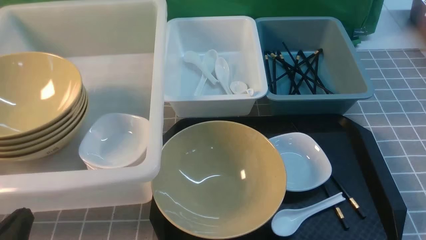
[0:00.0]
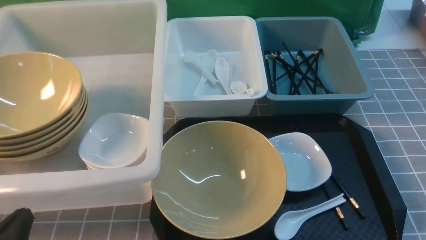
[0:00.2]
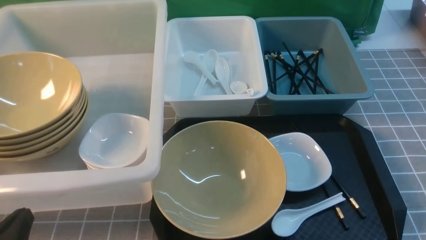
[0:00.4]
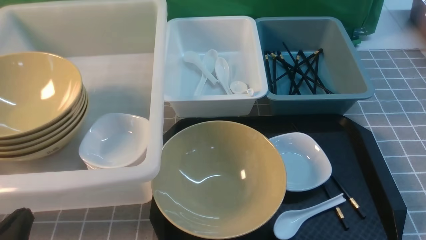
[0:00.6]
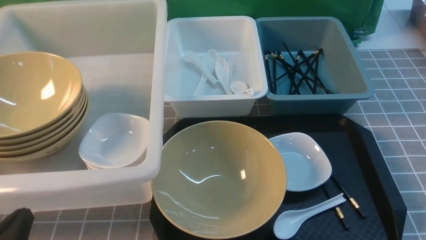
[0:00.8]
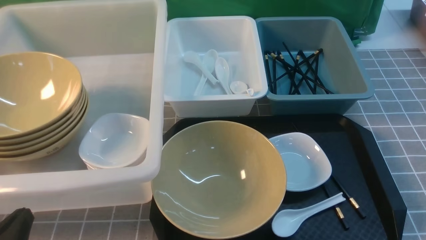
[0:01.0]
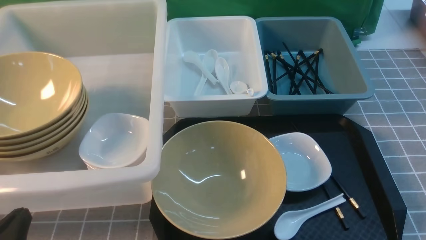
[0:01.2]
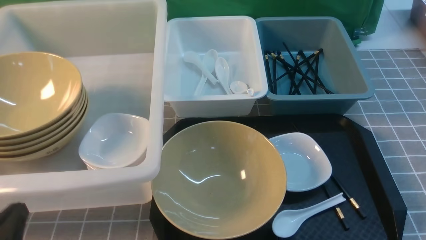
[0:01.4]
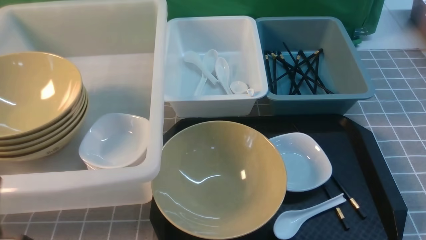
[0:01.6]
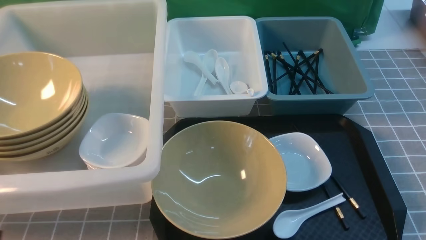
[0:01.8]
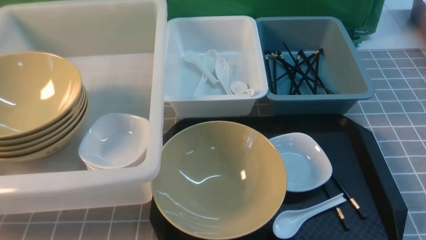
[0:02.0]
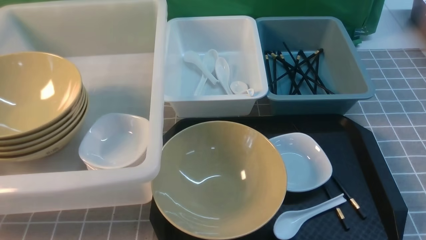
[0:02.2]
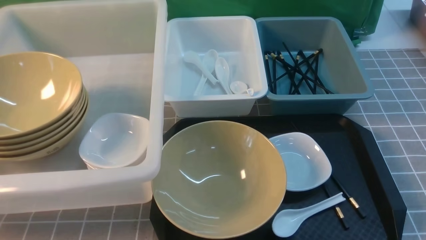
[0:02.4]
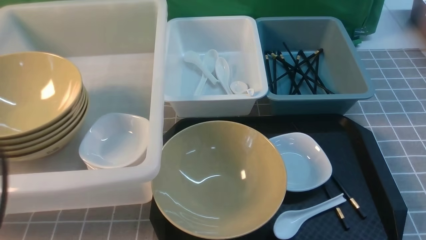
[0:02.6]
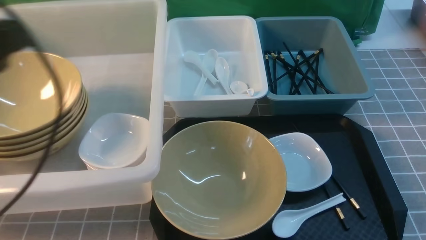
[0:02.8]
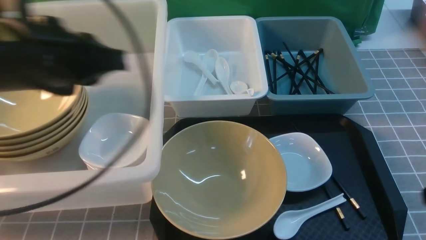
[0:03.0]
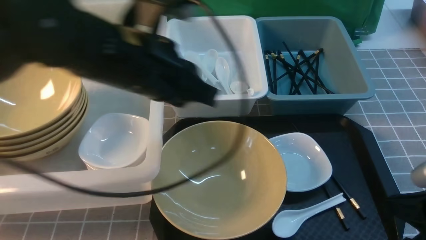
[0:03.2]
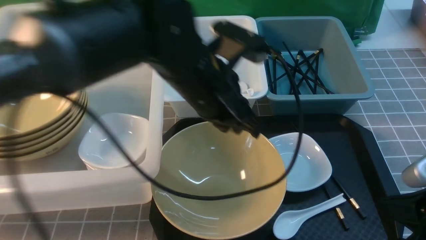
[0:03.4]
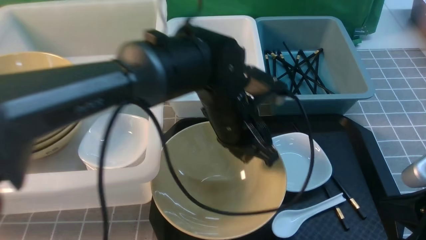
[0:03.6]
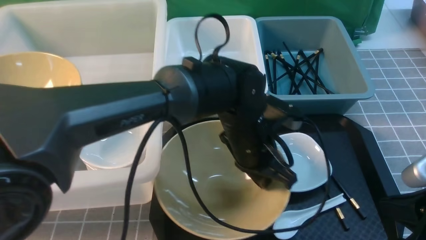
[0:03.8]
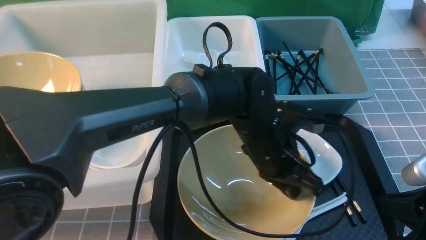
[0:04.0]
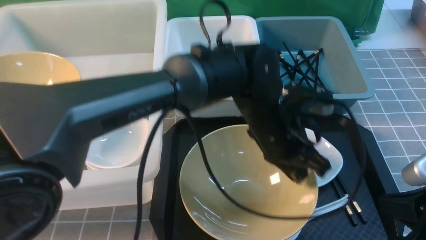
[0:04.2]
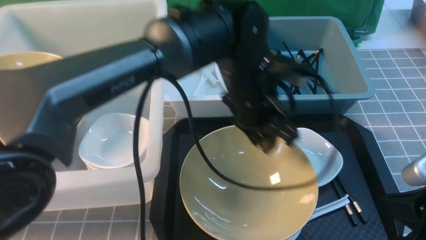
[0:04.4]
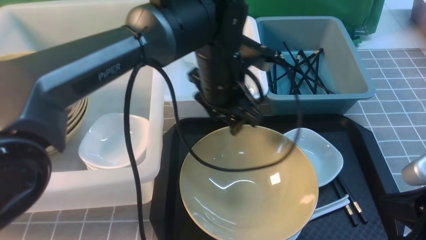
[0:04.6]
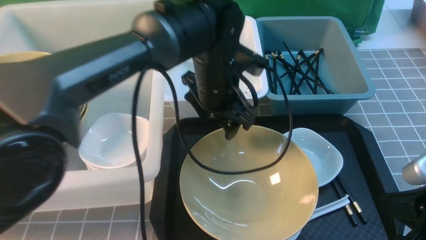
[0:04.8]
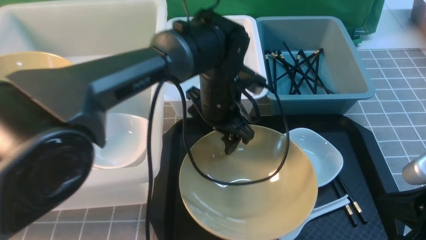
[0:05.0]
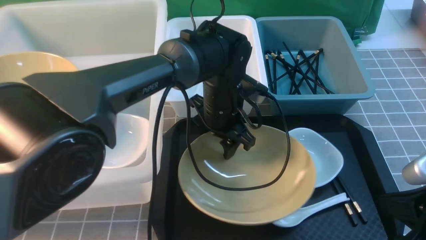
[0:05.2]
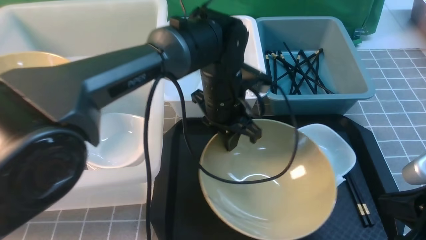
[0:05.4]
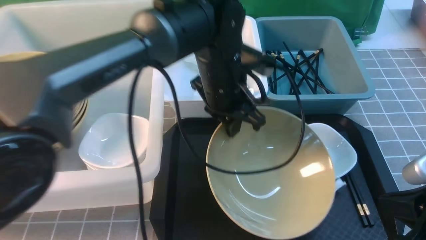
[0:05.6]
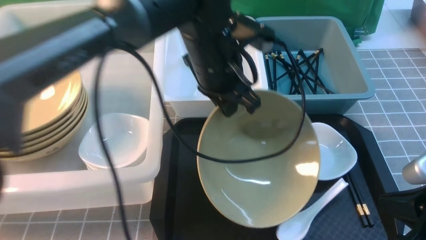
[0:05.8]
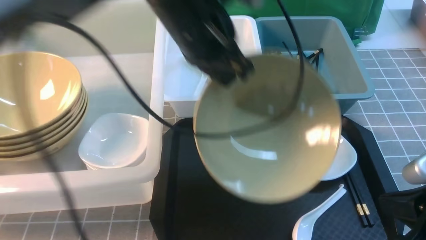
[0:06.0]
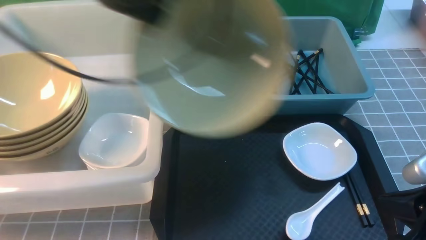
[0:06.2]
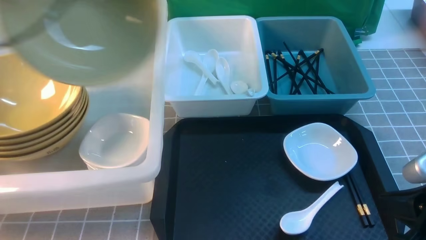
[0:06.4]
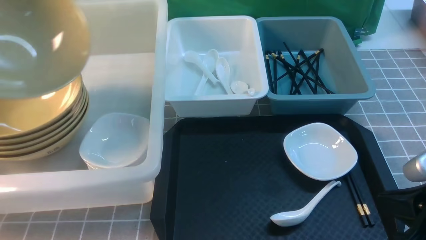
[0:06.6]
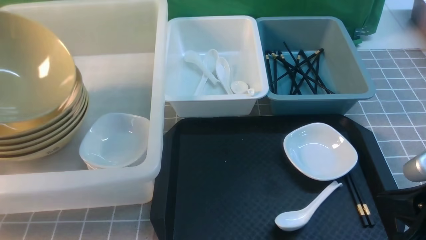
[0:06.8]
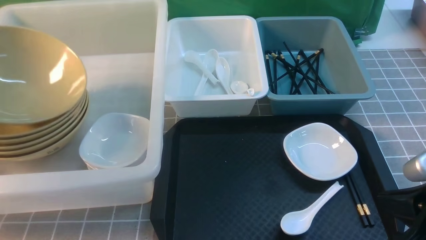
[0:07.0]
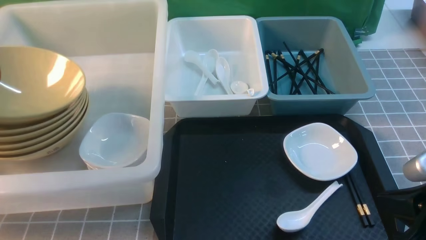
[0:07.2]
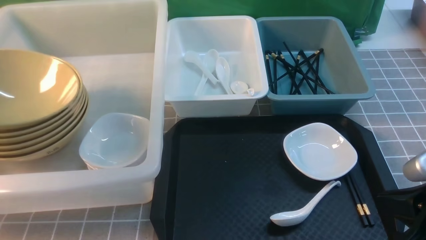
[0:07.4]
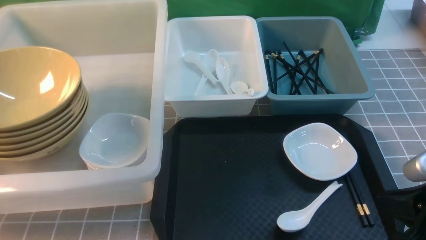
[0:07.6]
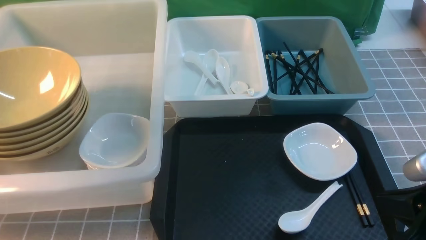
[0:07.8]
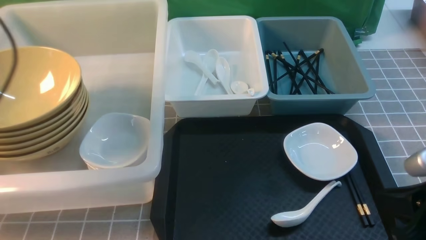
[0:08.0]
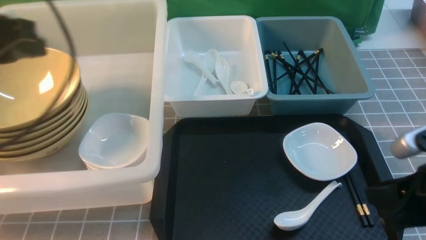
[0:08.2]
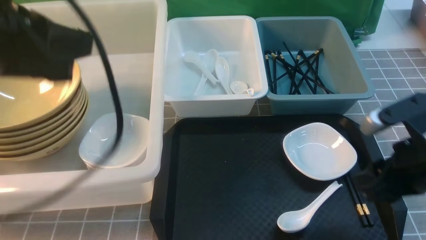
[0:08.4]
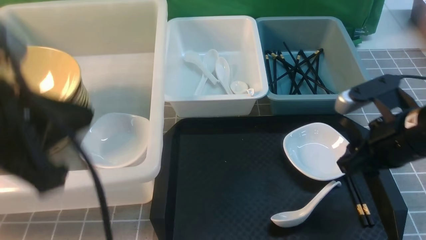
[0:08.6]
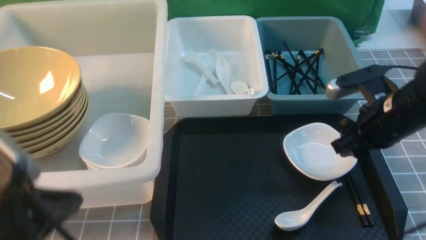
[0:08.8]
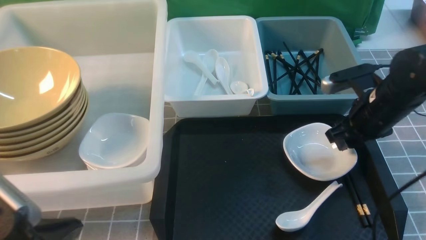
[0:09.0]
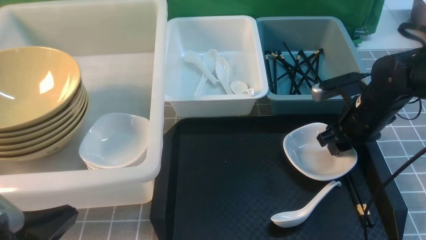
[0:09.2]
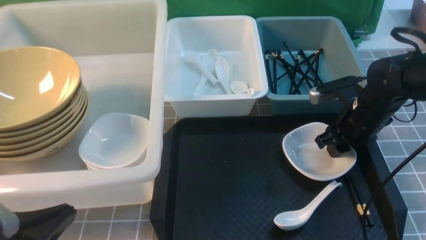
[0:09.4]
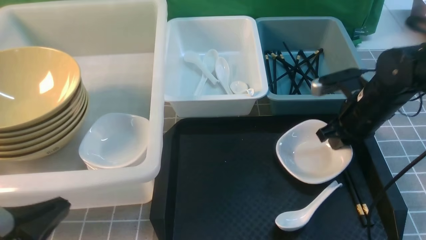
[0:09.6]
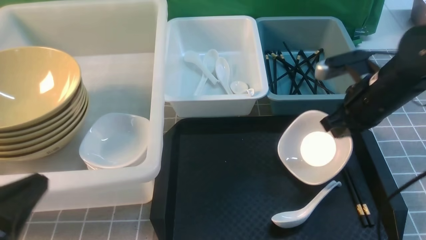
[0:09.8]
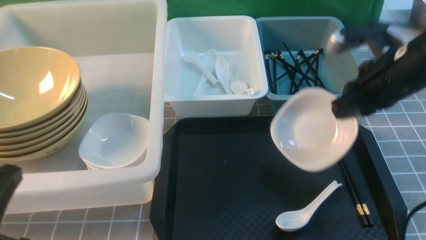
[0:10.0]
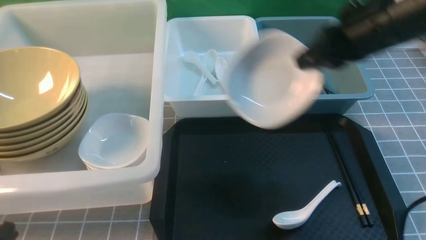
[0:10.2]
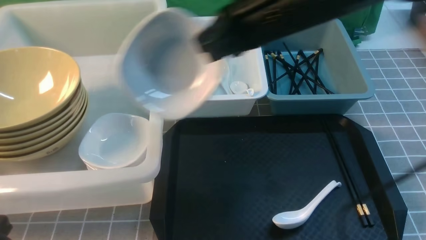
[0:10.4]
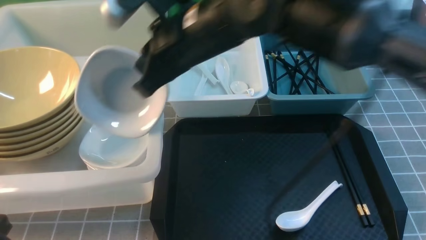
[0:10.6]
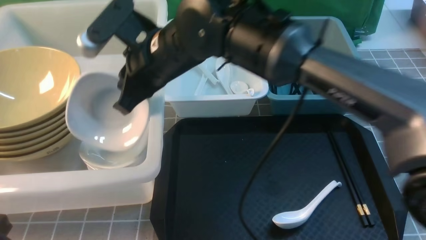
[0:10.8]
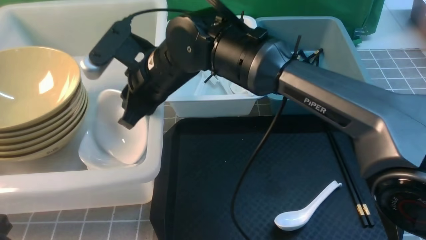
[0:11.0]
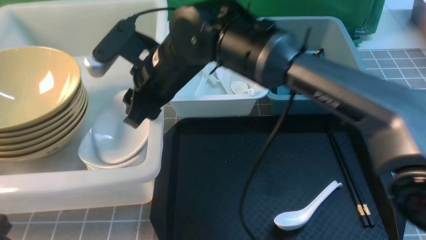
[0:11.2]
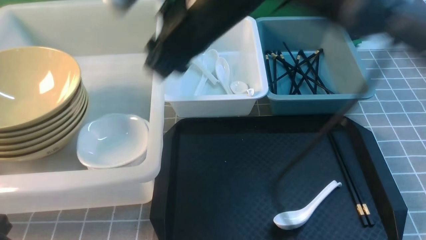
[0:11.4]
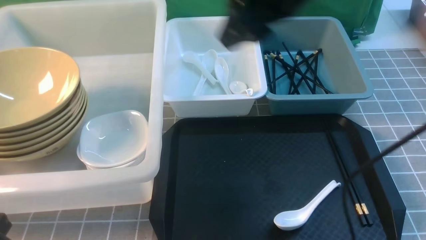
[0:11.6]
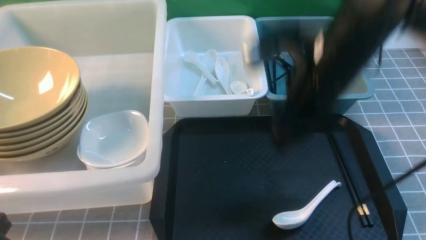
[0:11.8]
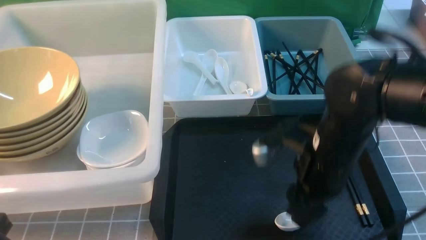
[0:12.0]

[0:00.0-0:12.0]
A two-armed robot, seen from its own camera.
Task of the whole recording: on grey table put chopsticks spoon bowls plates into blue grey white boxes.
Step, 0:00.0 to 0:05.4: use the left arm to grab the yellow noodle bowl on the left.
Step, 0:05.8 to 0:07.8: use the left arm to put the noodle bowl into the large storage box on the left.
Step, 0:08.0 to 0:09.8: use the right arm to grab the plate.
Step, 0:10.0 to 0:11.2: use the right arm to put the plate into the large storage box on the left.
0:01.6 to 0:03.0: The left gripper heads forward, upward and to the right, covering about 25 cm. Meanwhile the right gripper goes some 5 cm forward, and closes.
0:03.0 to 0:04.4: The left gripper moves to the right, downward and forward, some 25 cm, and opens its fingers.
0:04.4 to 0:06.0: The left gripper shifts roughly 15 cm upward and to the left, and closes up.
0:06.0 to 0:07.6: The left gripper goes roughly 30 cm to the left, and opens.
0:07.6 to 0:09.0: The right gripper travels forward by some 20 cm, and opens. The left gripper is displaced backward, to the right and downward by approximately 30 cm, and closes its fingers.
0:09.0 to 0:10.4: The right gripper heads to the left and upward, covering about 25 cm, and closes up.
0:10.4 to 0:12.0: The right gripper heads downward and to the right, covering some 15 cm, and opens.

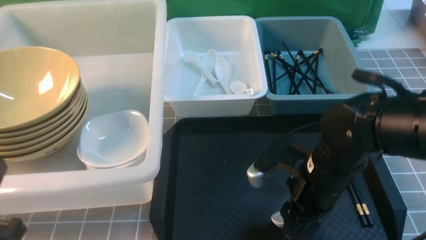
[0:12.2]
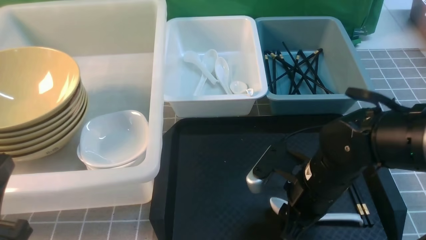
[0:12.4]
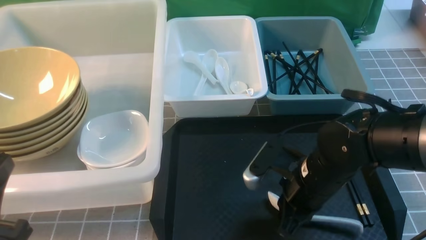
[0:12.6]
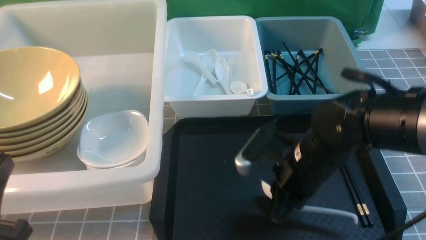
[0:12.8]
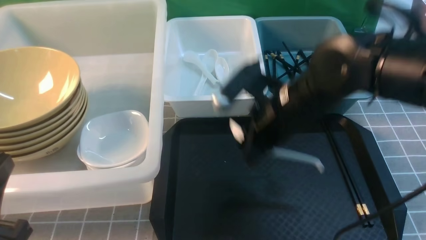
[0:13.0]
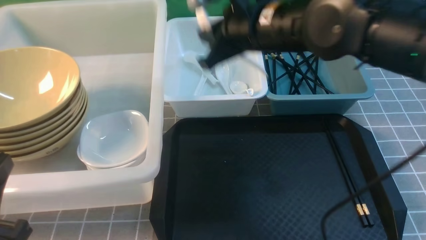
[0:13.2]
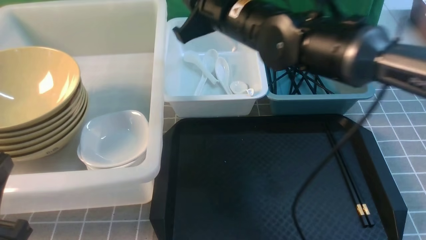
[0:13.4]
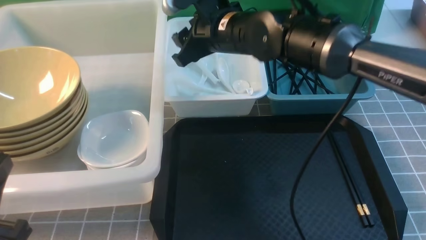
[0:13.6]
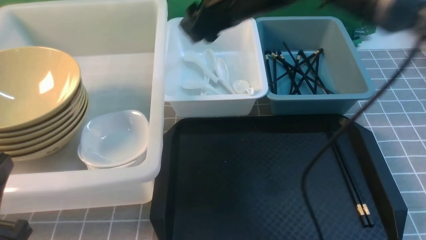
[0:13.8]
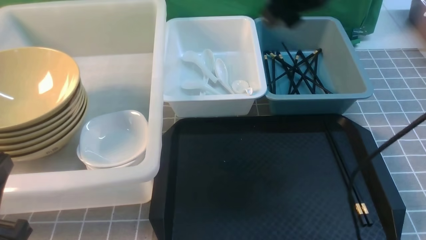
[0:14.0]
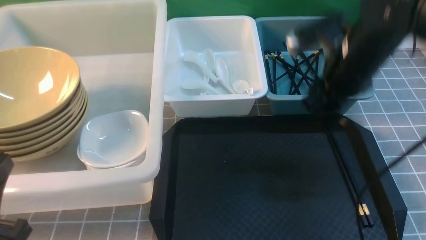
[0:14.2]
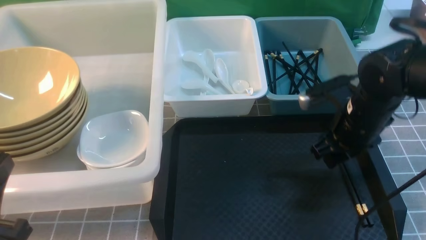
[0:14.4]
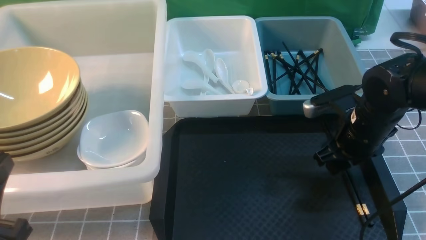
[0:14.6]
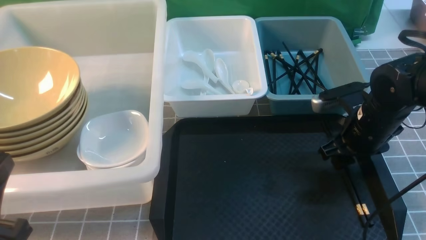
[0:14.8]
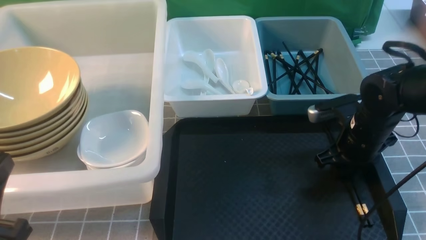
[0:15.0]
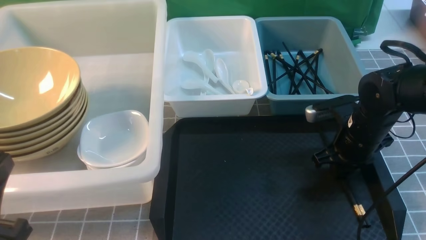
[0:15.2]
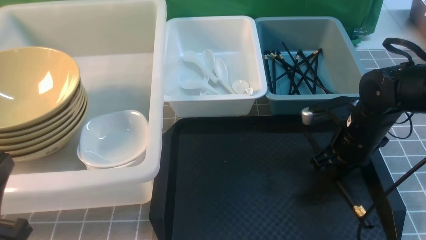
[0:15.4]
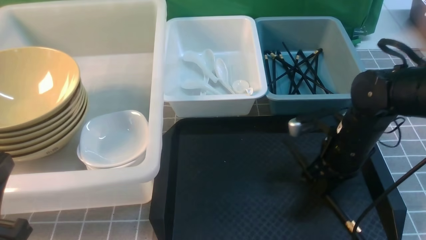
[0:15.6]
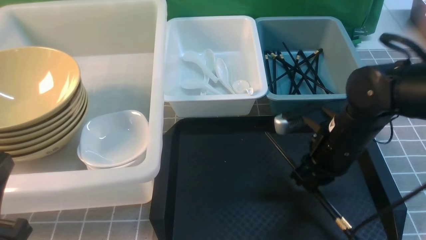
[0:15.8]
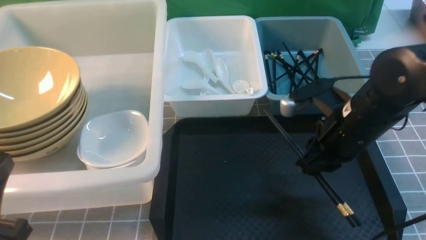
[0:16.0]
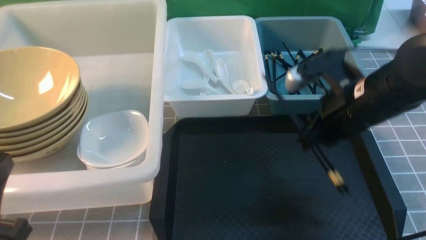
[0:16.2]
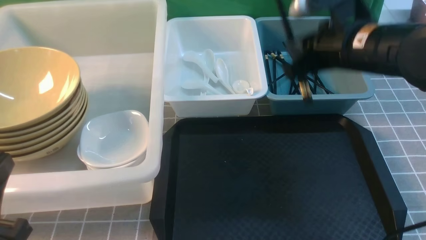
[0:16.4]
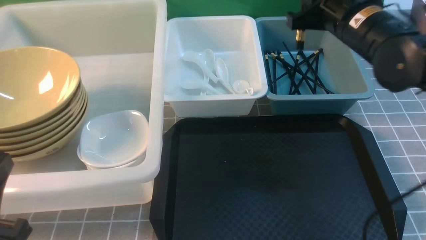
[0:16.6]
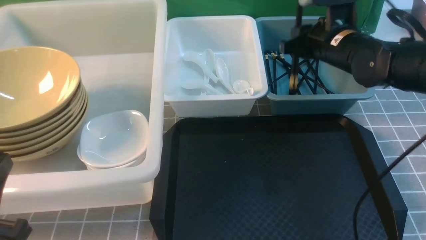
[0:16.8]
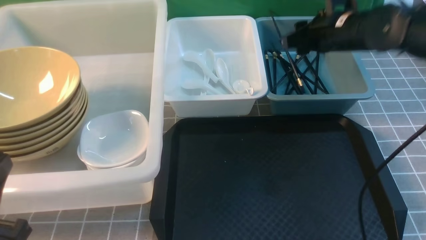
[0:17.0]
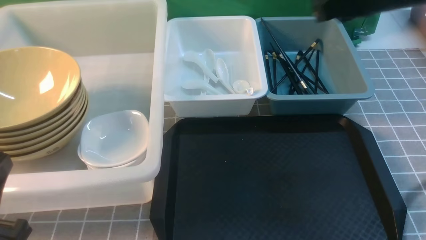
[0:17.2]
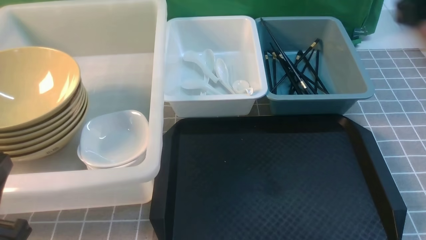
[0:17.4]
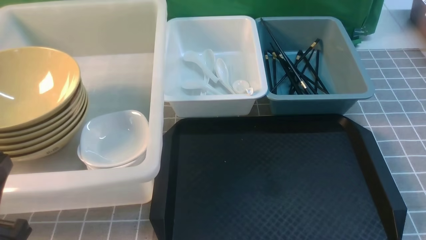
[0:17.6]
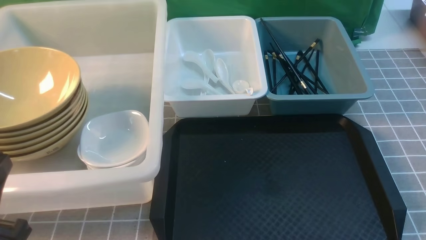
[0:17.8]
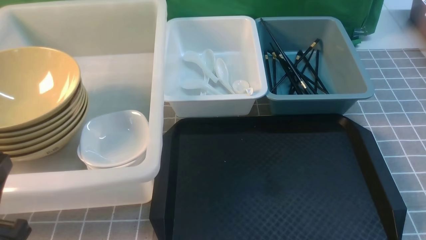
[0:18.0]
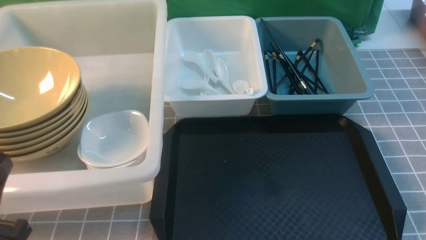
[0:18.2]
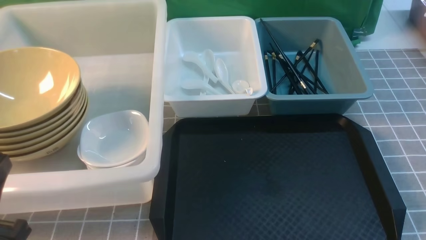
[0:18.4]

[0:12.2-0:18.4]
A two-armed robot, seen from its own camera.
Task of the whole recording: on grey table put chopsticks spoon bowls plates into blue grey white boxes.
Step, 0:12.8 to 0:13.6: use the right arm to put the soup spoon into the small storage box in the middle.
Step, 0:14.0 to 0:15.8: use the right arm to grab the chopsticks.
Step, 0:16.2 to 0:17.0: use the right arm to put the chopsticks into the small storage box on the right.
0:12.2 to 0:13.8: The right gripper heads upward and forward, covering about 25 cm, and closes, then reopens.
0:13.8 to 0:15.4: The right gripper heads downward and to the right, covering roughly 25 cm, and closes up.
0:15.4 to 0:16.8: The right gripper shifts roughly 15 cm upward and forward.
0:16.8 to 0:18.4: The right gripper shifts about 35 cm backward, and closes.
